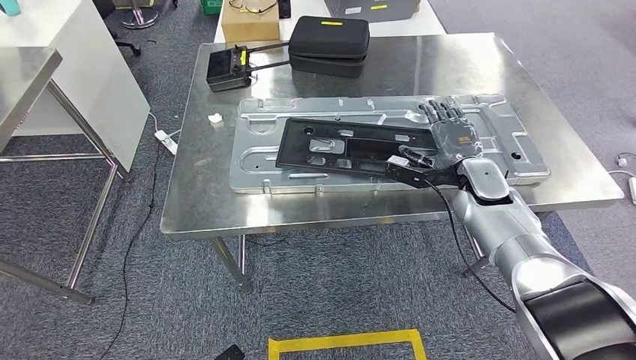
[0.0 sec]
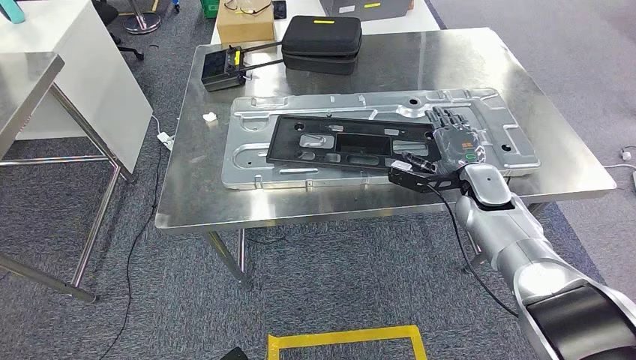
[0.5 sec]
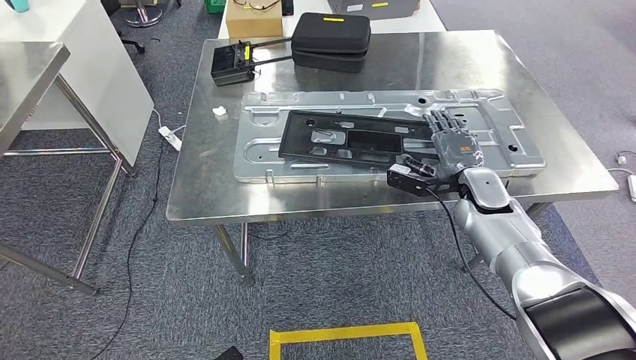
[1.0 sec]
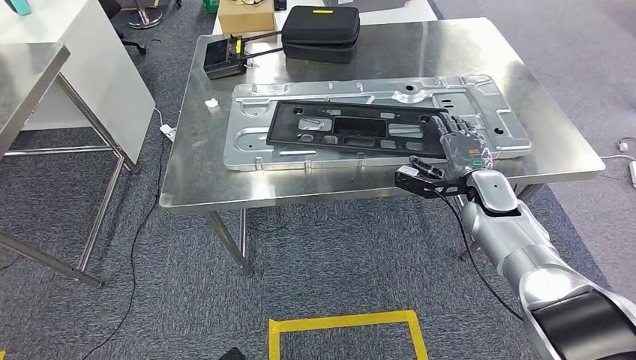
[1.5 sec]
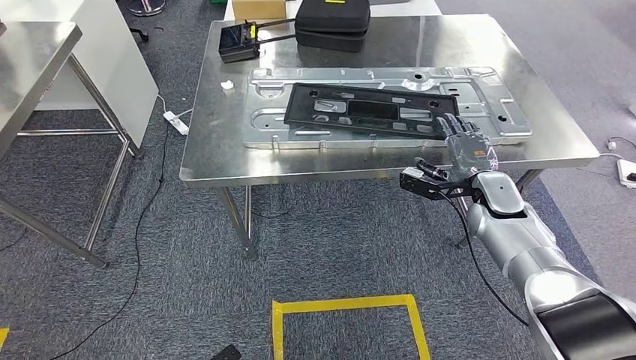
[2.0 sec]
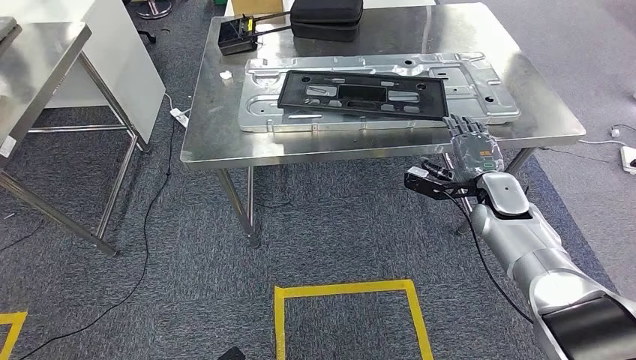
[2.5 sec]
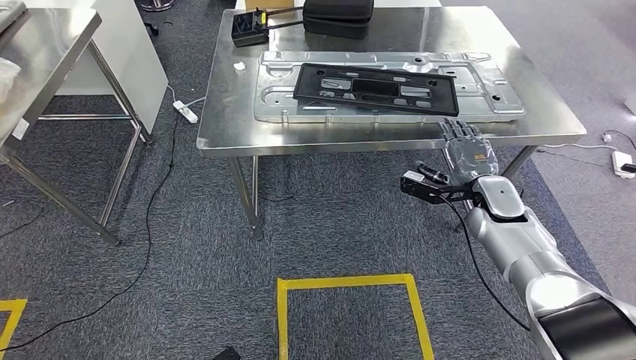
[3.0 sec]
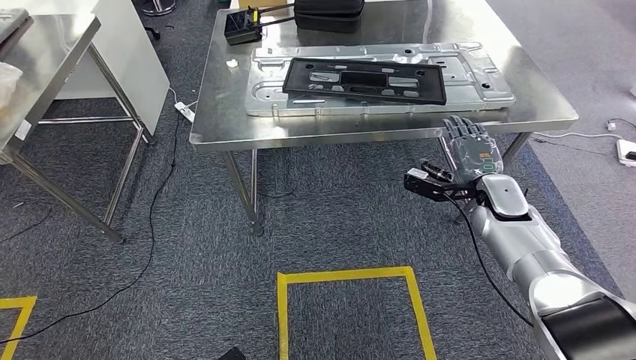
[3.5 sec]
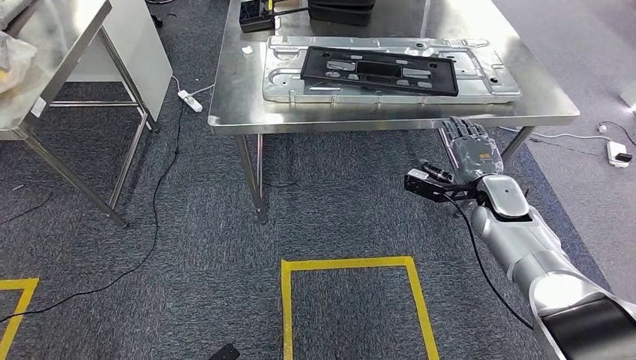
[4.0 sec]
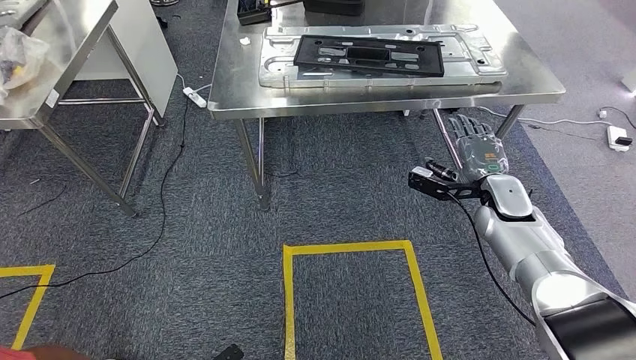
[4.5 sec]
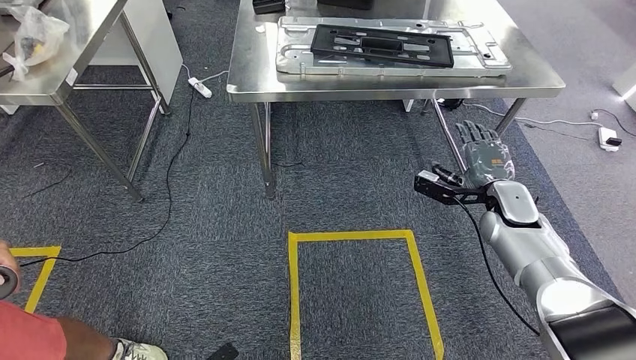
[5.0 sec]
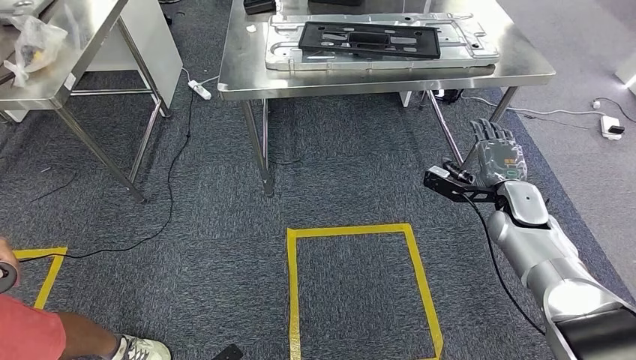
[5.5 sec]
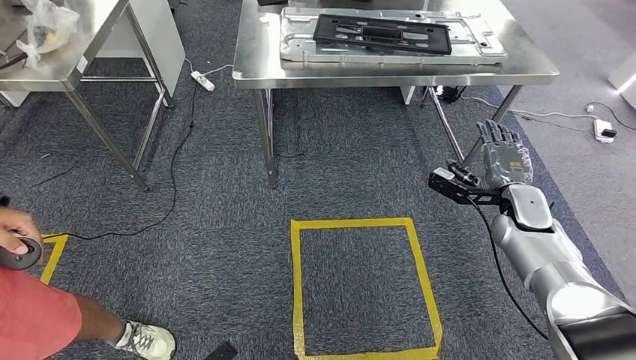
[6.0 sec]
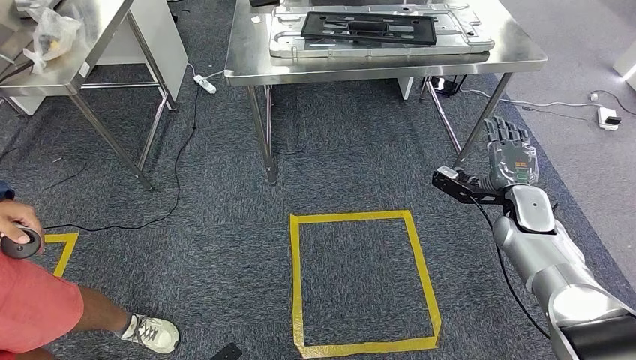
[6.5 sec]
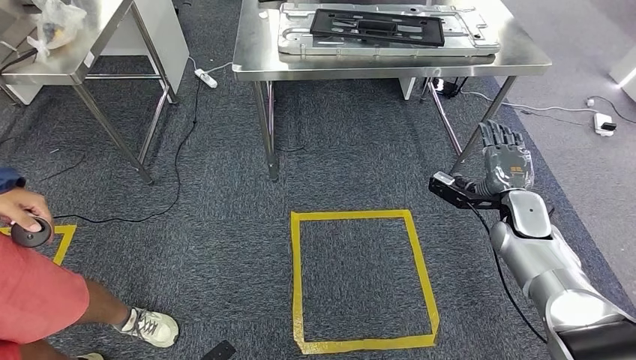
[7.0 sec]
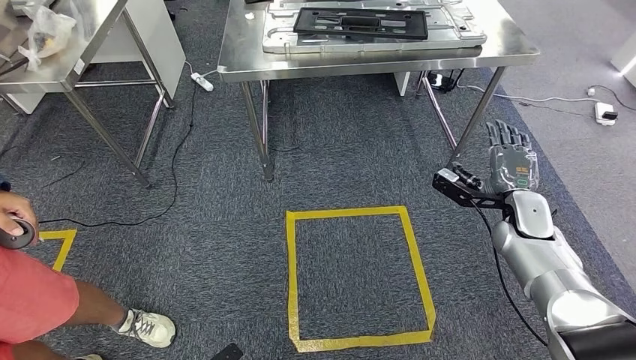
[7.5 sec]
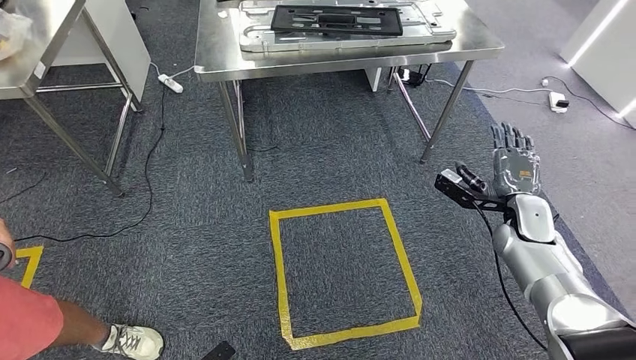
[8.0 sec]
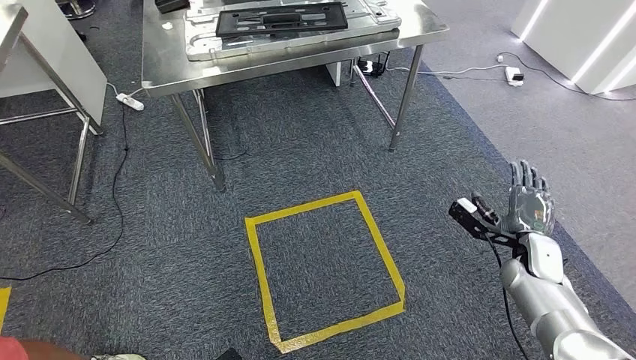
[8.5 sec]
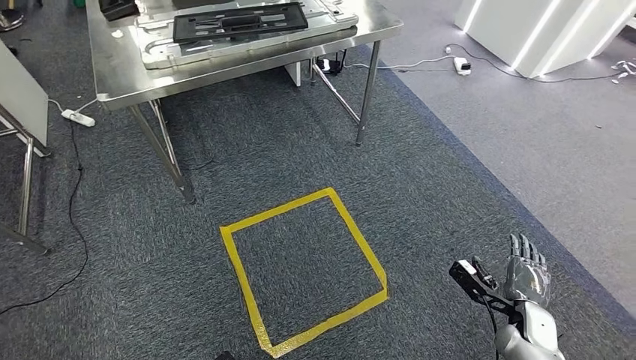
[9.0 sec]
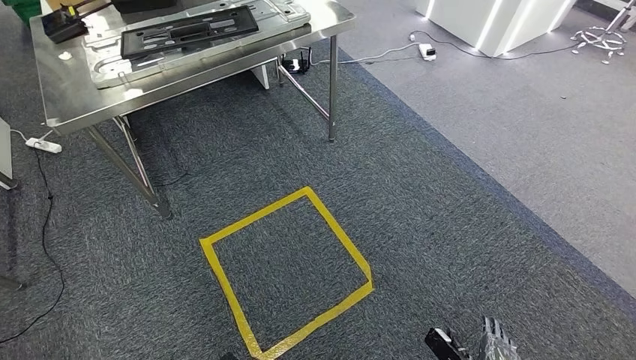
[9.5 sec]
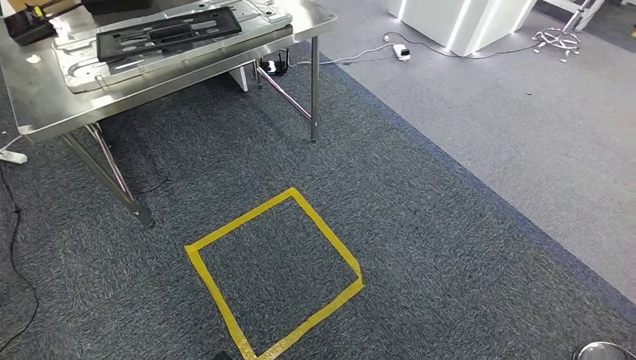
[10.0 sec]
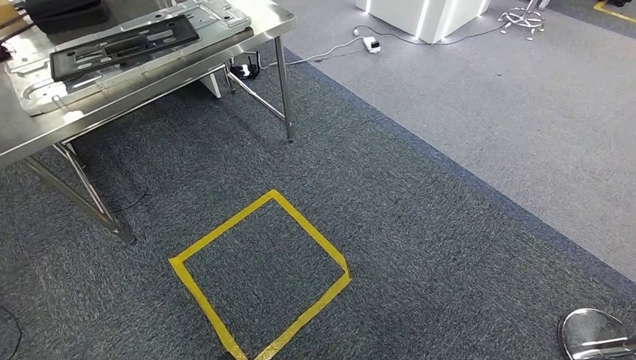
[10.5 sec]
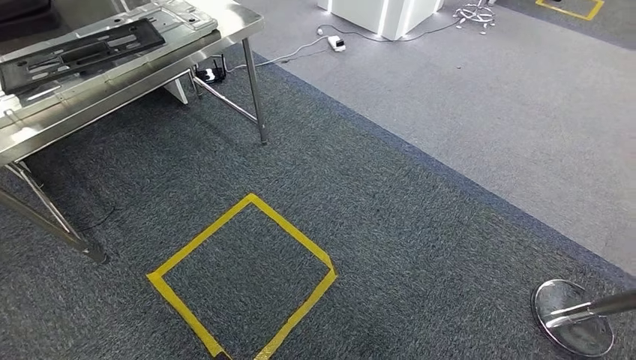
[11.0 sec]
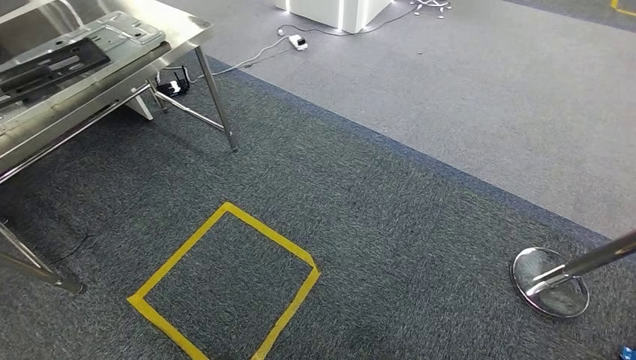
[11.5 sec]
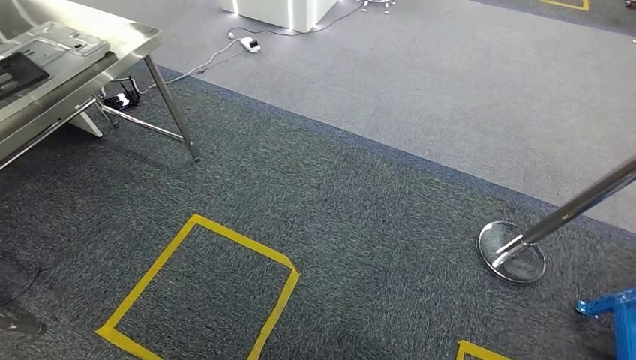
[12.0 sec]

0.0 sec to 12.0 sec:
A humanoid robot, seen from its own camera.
Step, 0.0 sec to 2.0 sec: Insert the large material into the corresponding slot on the workbench.

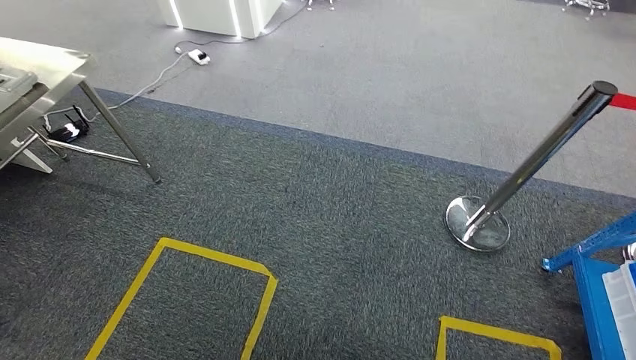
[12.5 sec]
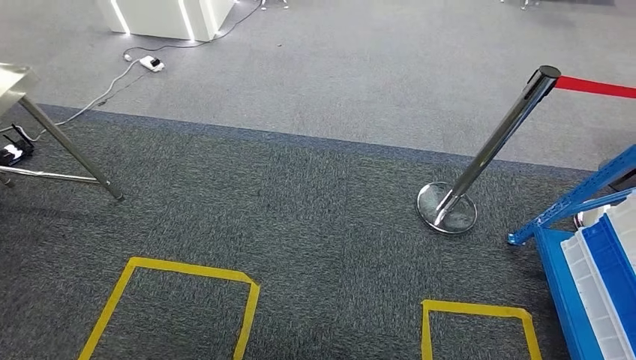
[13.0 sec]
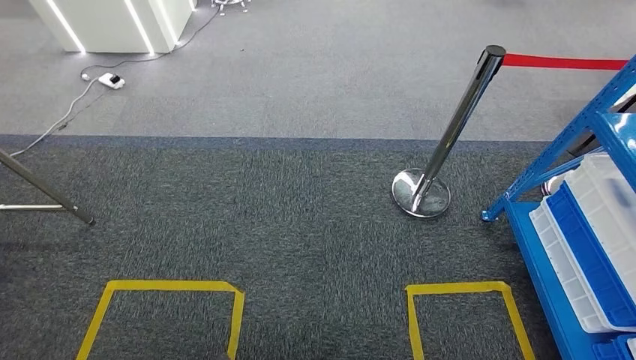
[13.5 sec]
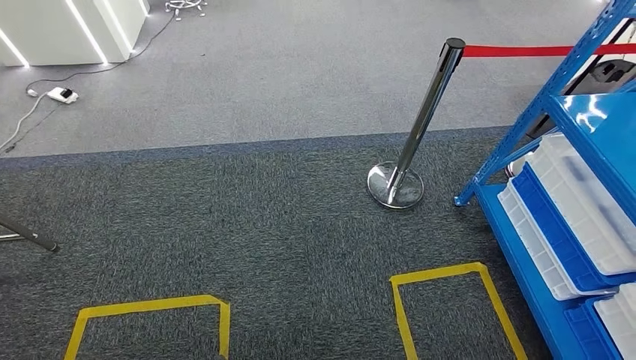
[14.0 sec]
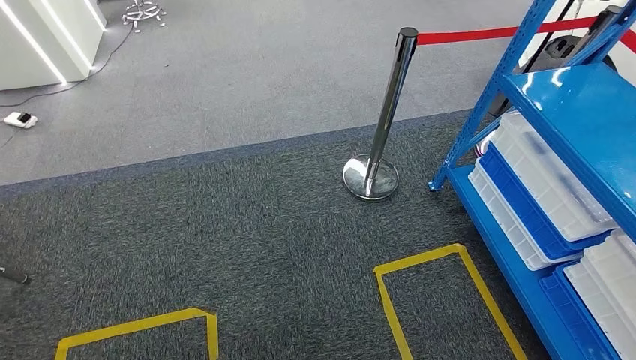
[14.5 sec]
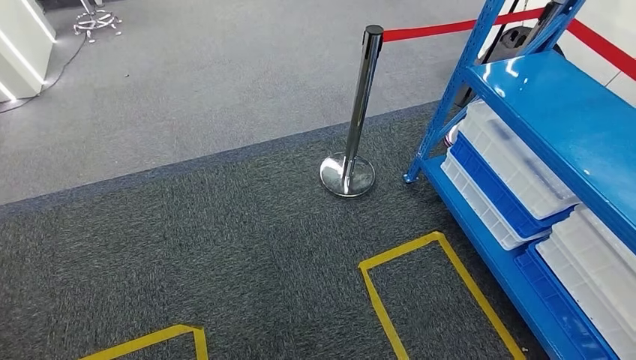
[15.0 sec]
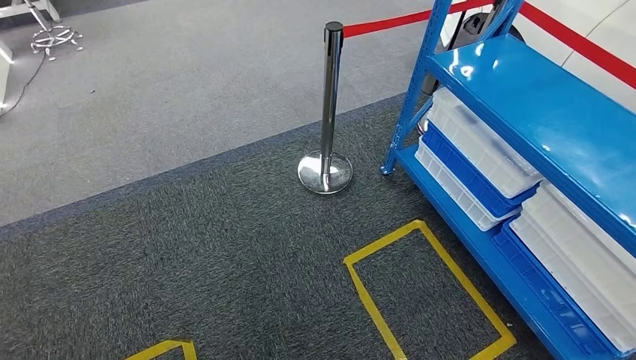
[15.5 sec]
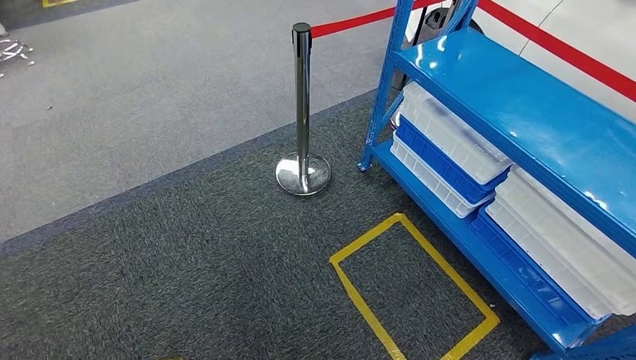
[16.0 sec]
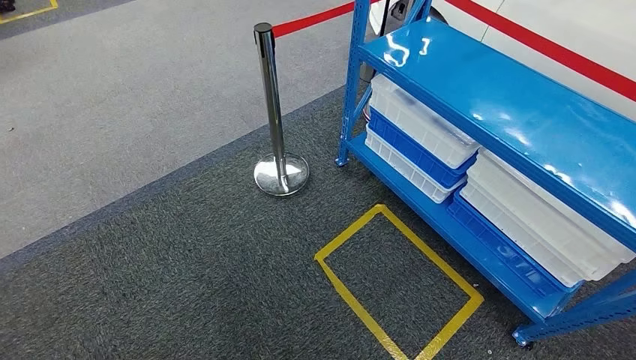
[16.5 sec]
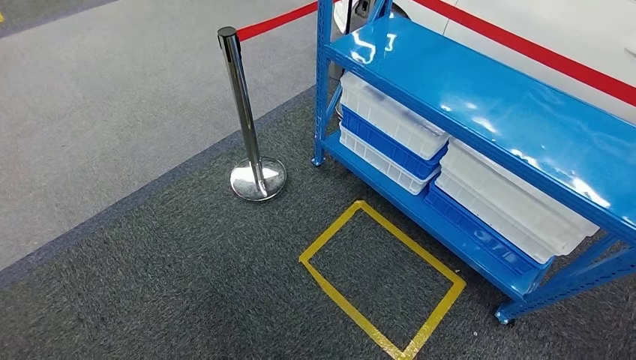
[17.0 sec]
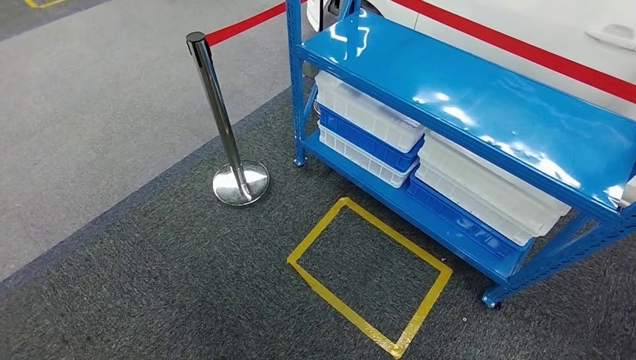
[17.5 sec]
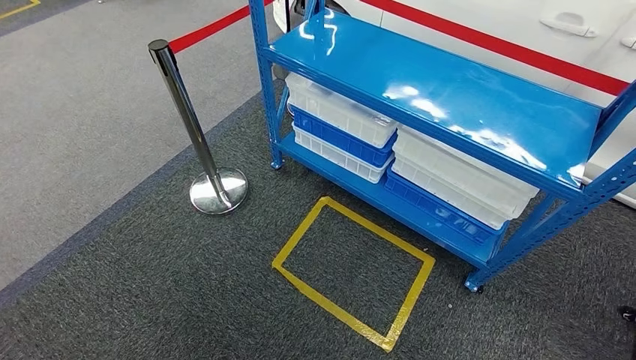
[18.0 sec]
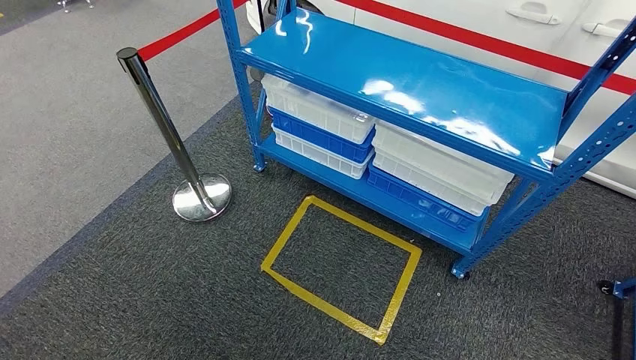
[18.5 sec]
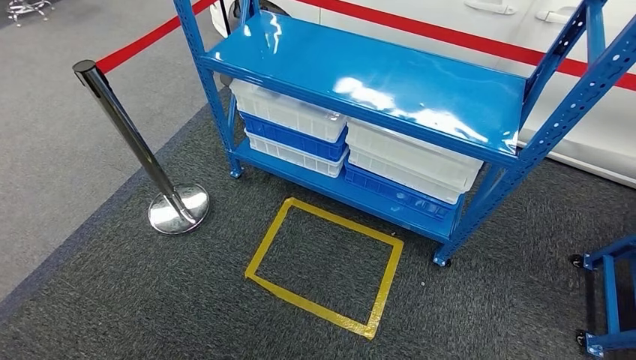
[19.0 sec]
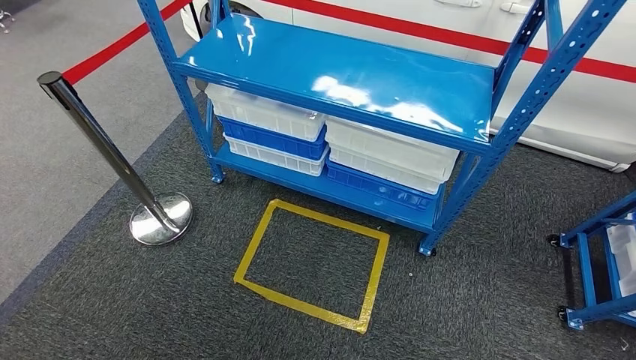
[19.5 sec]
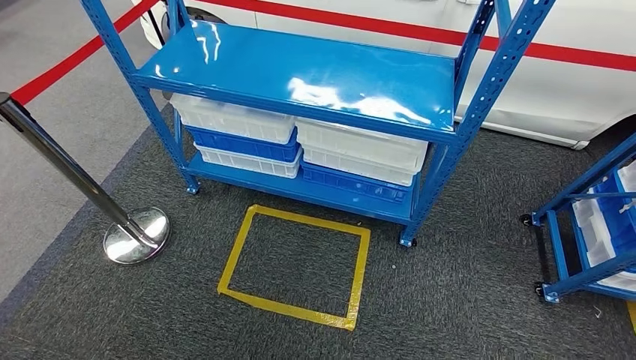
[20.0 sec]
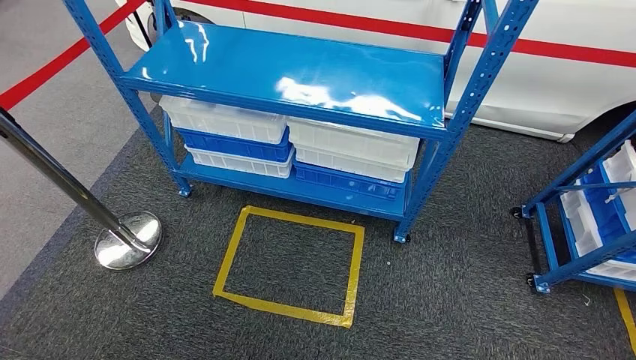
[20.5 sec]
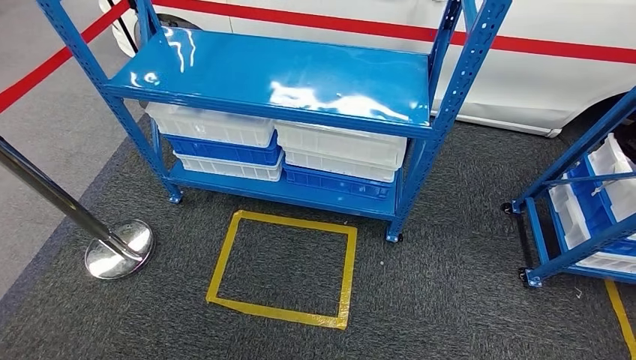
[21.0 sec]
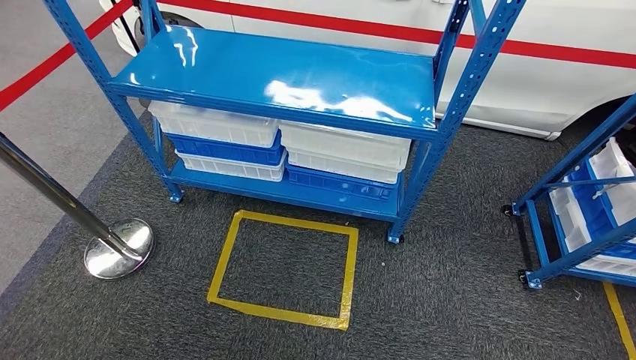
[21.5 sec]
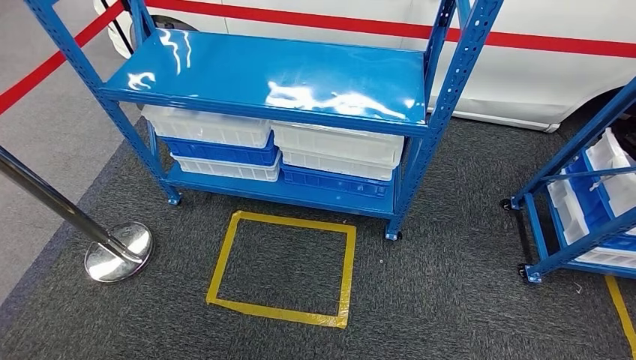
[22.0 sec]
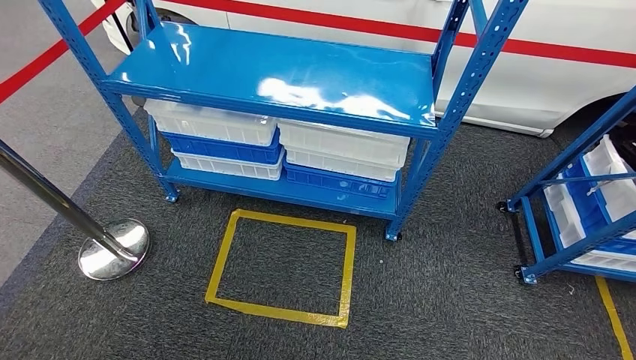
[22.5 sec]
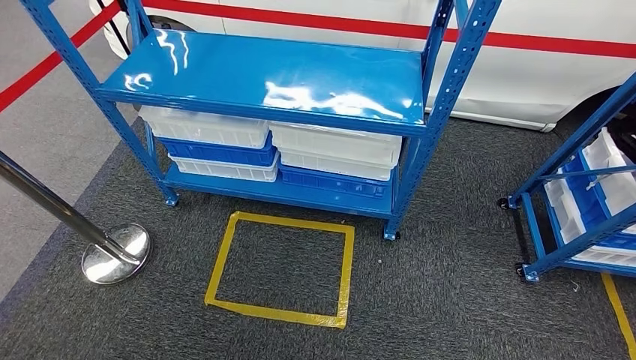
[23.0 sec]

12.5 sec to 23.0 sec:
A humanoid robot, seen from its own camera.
Step, 12.5 sec to 23.0 sec: Move to the initial position of the shelf.
21.0 sec to 23.0 sec: The hands stay close to where they were, moving slightly.
